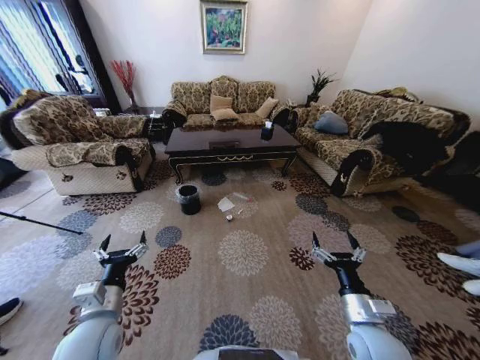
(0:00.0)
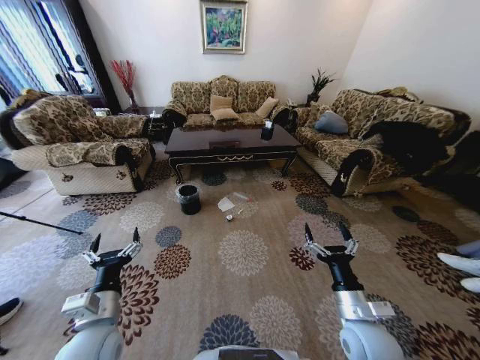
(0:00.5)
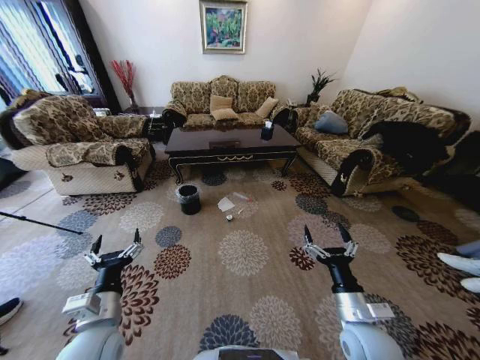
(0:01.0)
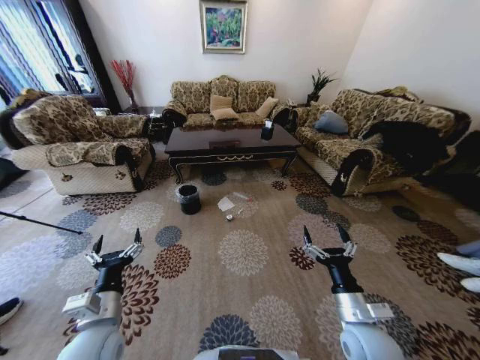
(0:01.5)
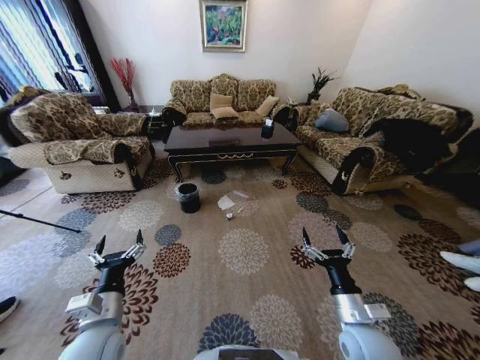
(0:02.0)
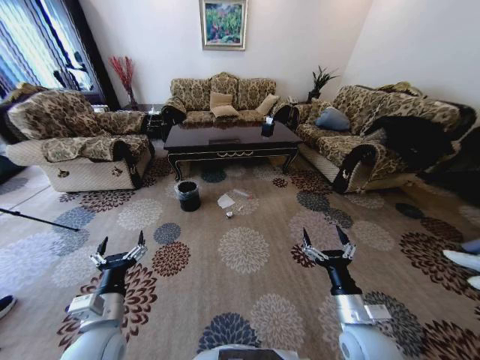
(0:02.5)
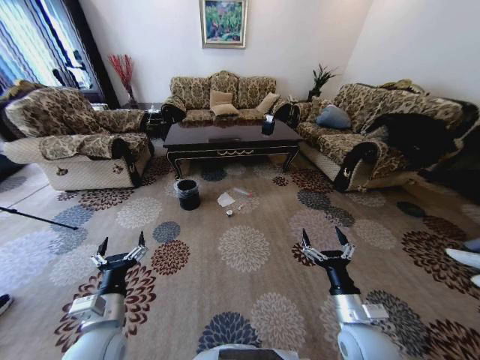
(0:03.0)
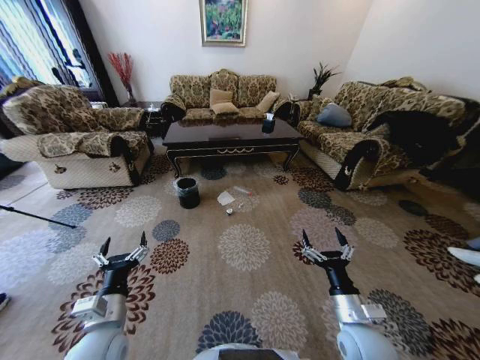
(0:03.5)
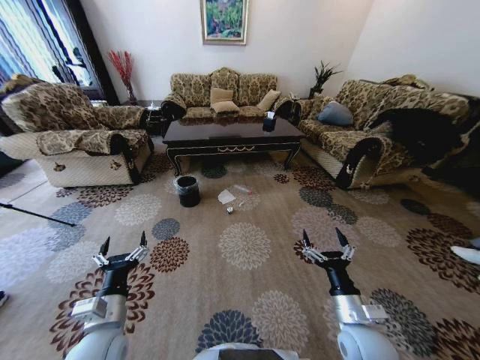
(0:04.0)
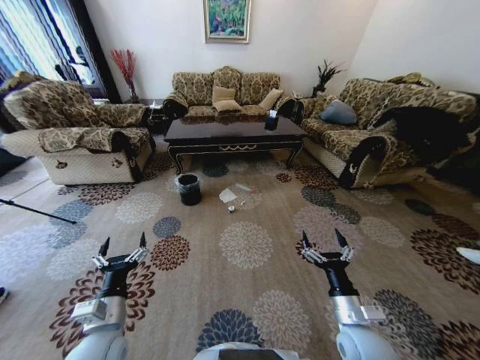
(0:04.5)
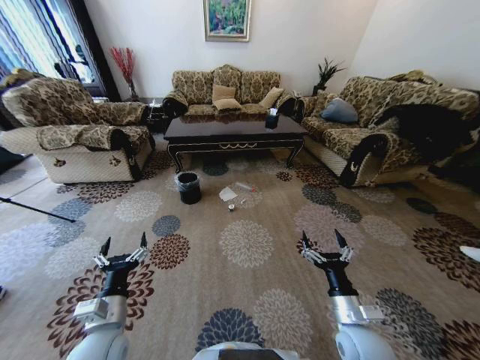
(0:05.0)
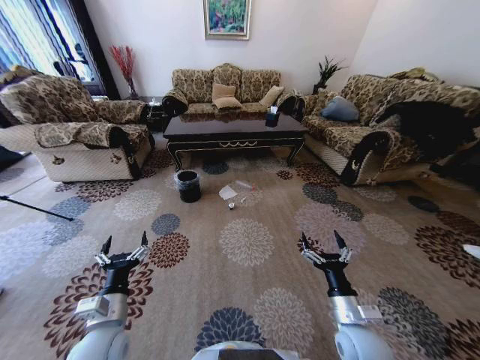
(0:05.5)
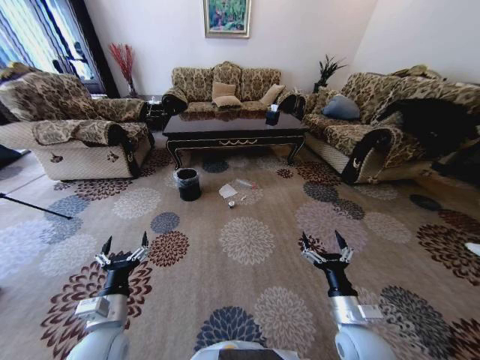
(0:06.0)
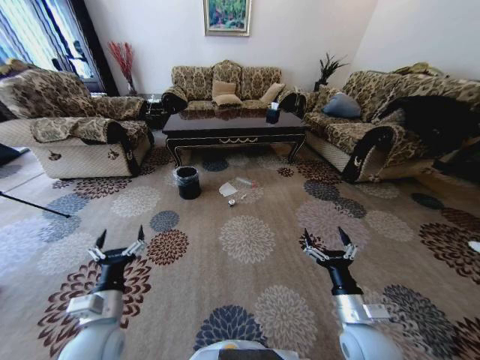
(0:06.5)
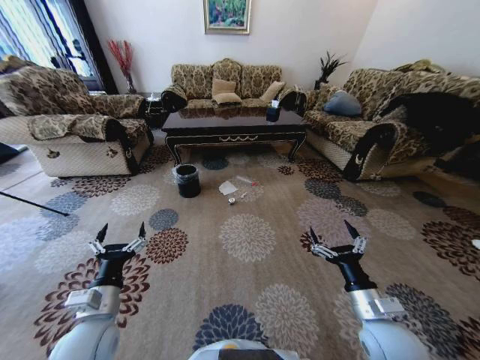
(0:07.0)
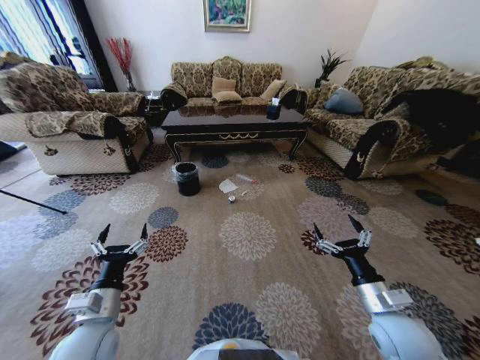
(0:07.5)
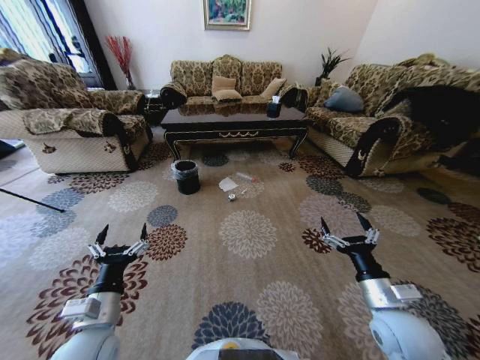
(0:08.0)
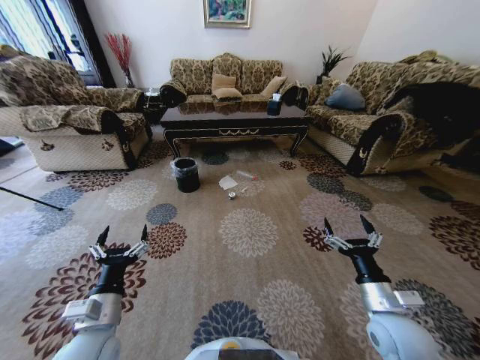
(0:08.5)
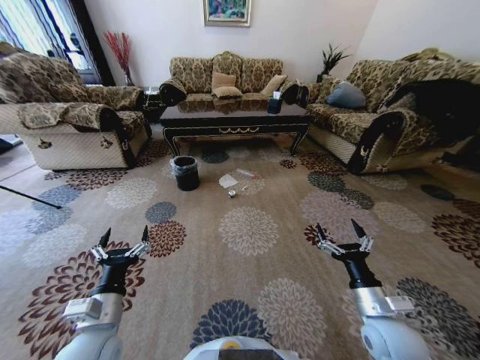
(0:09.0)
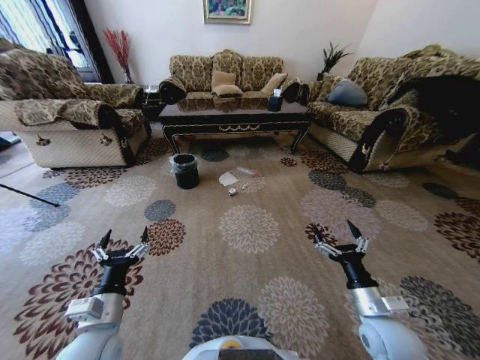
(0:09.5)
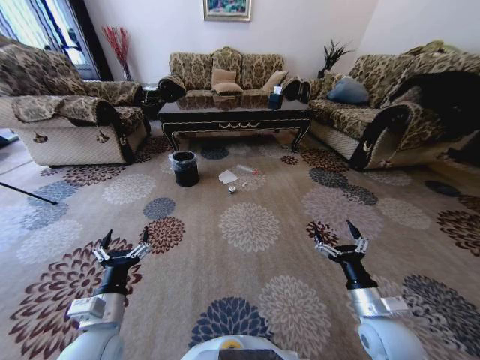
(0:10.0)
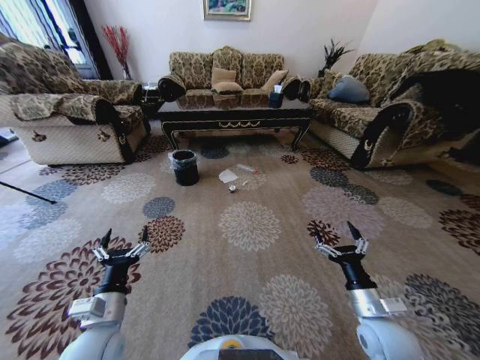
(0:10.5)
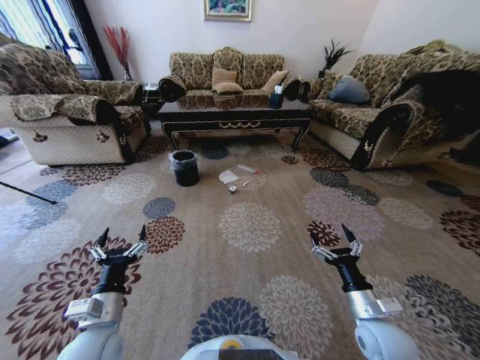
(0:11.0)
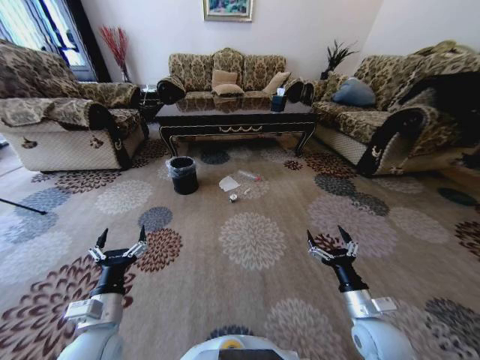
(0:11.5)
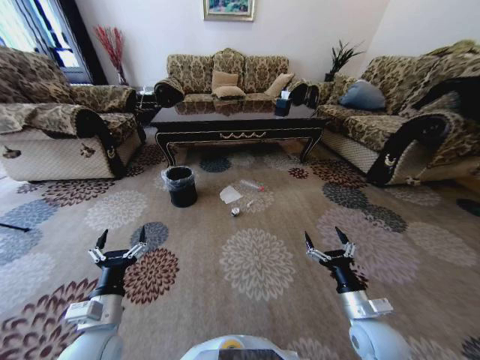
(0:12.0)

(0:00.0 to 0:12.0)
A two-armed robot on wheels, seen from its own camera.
Task of the whole recording: Move to the front of the table and pick up the trash from the floor, then place it into the trash bin.
0:06.0 - 0:08.0: The right gripper goes about 10 cm upward and to the right.

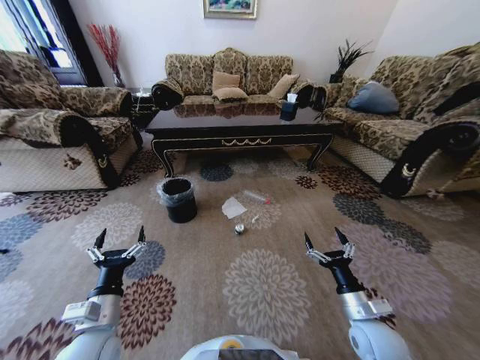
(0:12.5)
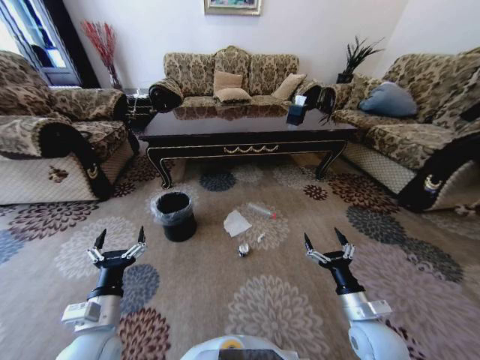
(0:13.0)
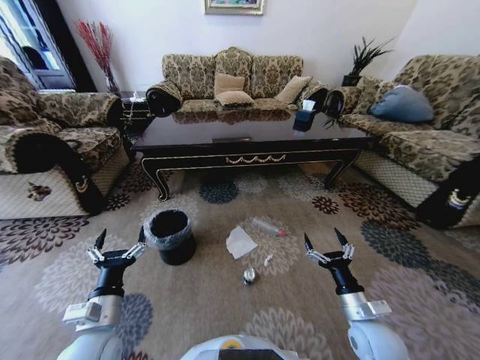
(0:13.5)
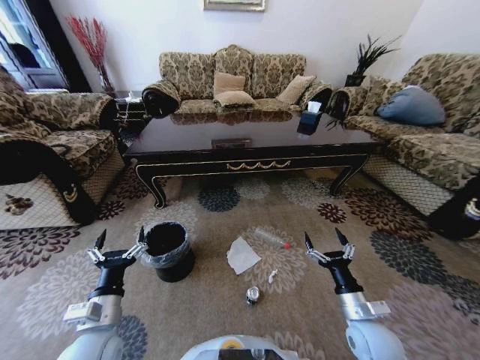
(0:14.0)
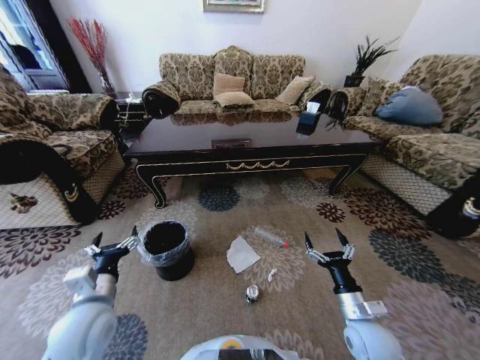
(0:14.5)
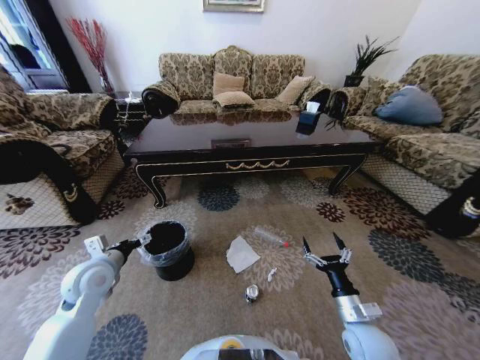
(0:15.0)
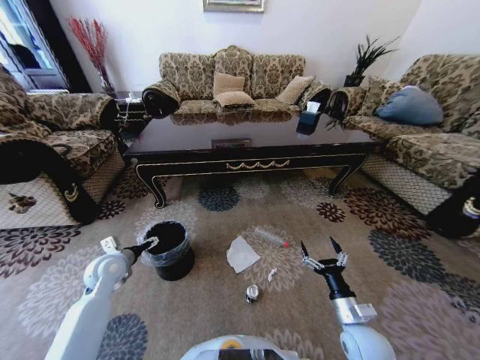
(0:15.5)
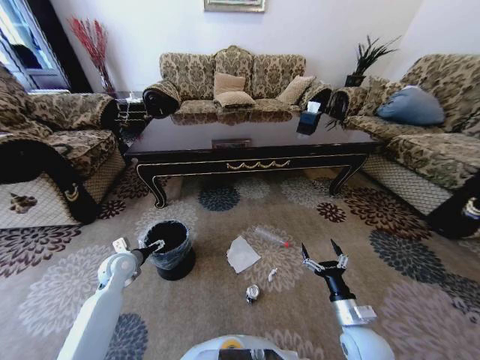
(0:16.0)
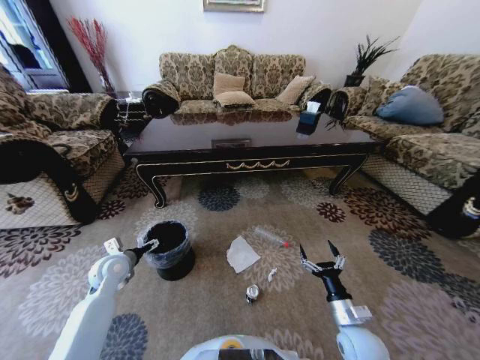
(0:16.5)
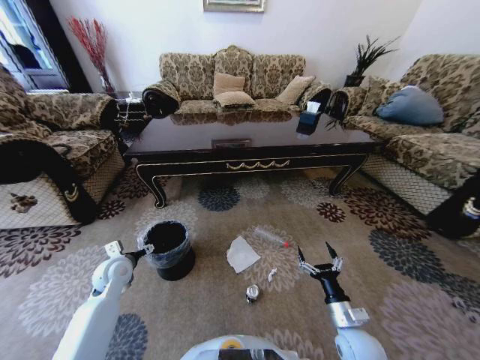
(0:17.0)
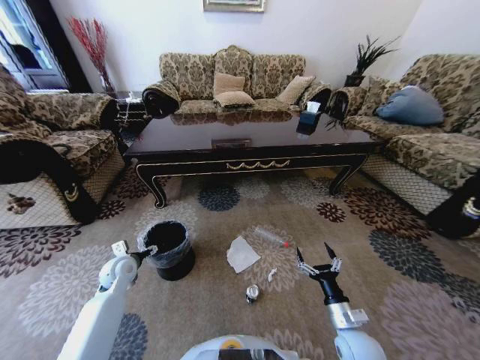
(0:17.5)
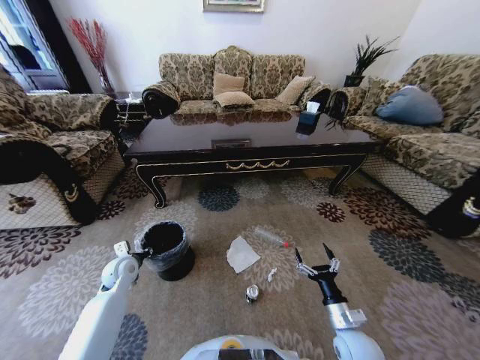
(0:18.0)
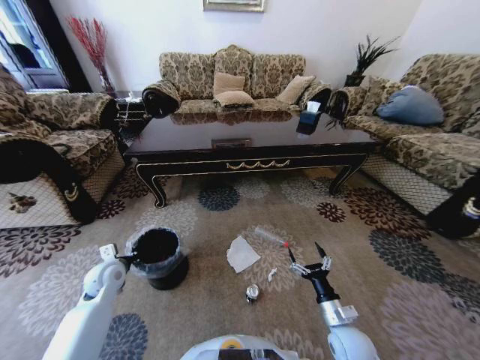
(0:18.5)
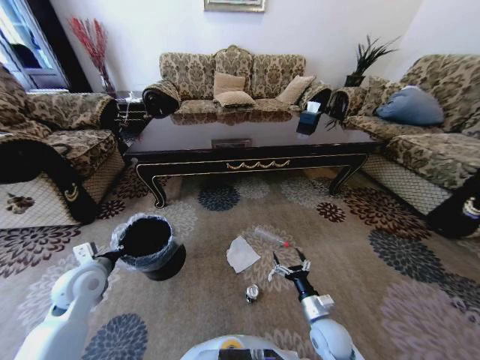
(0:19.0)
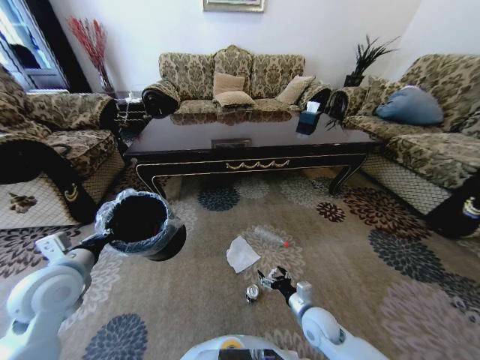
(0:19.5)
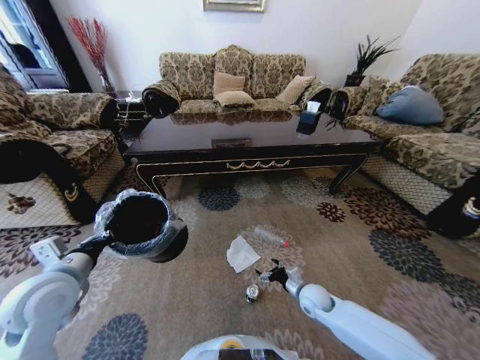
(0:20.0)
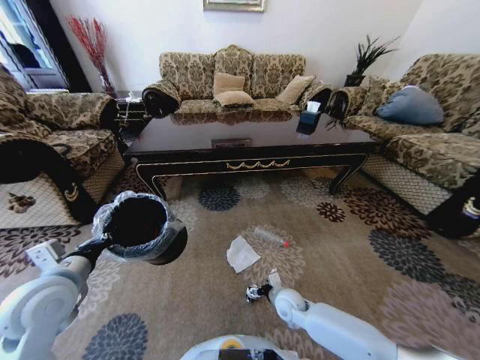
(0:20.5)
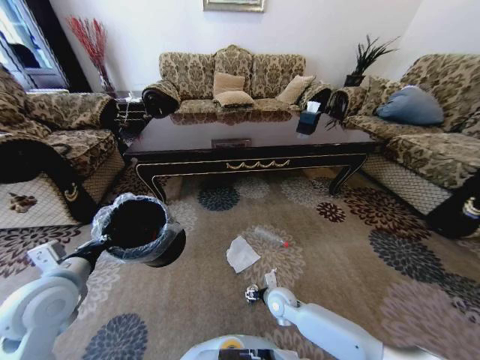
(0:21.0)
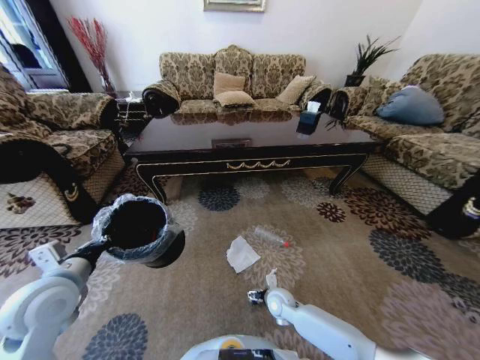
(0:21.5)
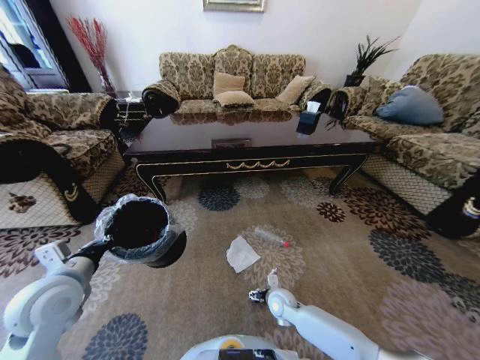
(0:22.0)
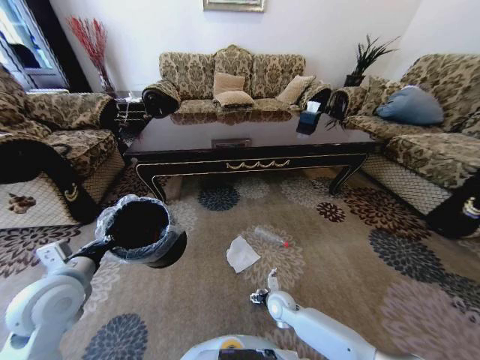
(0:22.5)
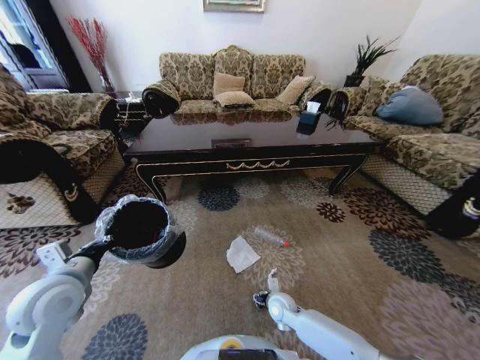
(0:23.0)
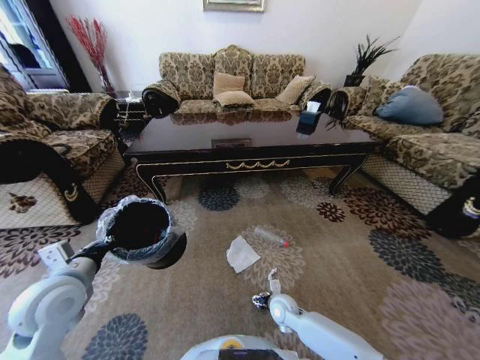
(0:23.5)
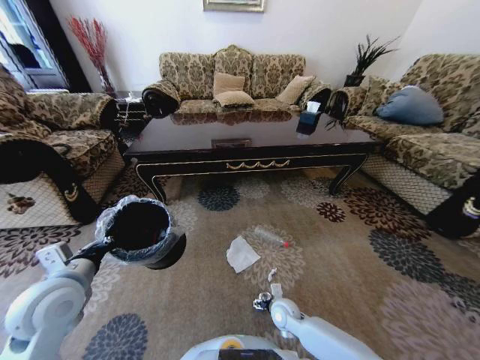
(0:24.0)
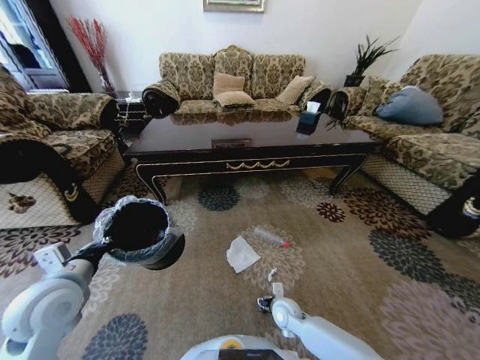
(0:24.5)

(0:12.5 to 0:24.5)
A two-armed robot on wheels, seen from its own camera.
Task of the whole recording: Move to the front of the table and pick up the trash from the floor, then place it into the trash bin.
0:12.5 - 0:14.5: The left gripper shifts by some 5 cm.
0:14.5 - 0:16.5: The left gripper moves forward, downward and to the left, approximately 20 cm.
0:16.5 - 0:18.5: The left gripper closes up.
0:18.5 - 0:20.5: The right gripper moves to the left and forward, about 15 cm. Meanwhile the left gripper is displaced upward and backward by some 20 cm.
0:20.5 - 0:22.5: The grippers move only a little.
0:22.5 - 0:24.5: The right gripper closes up.

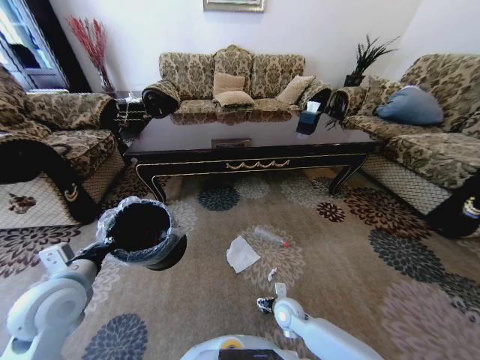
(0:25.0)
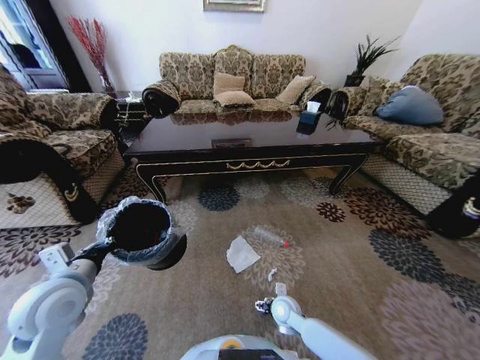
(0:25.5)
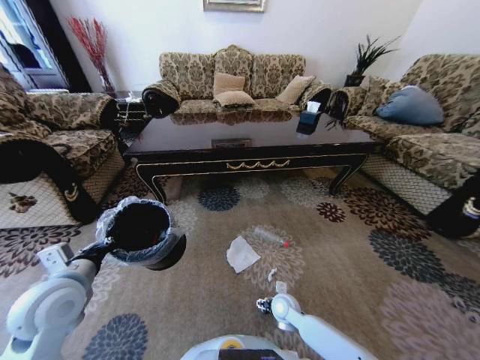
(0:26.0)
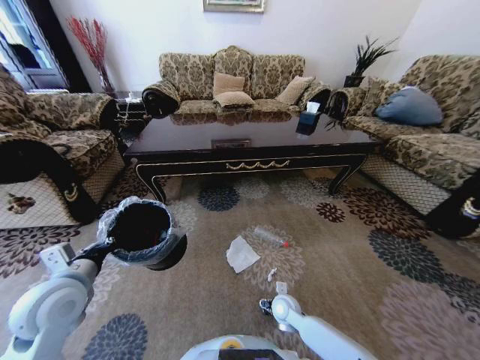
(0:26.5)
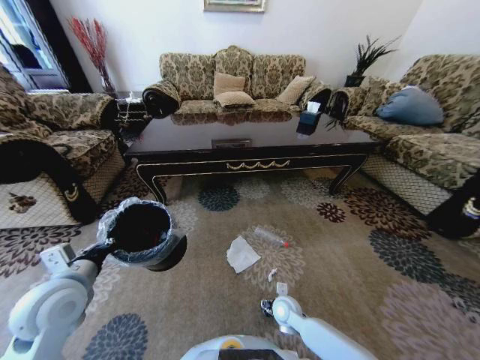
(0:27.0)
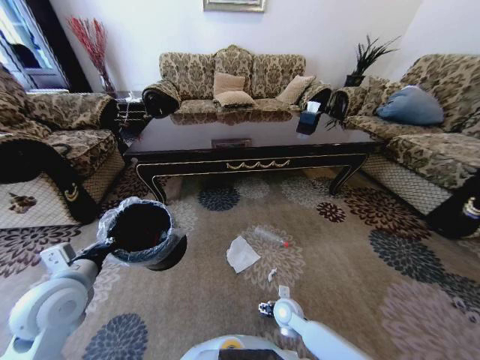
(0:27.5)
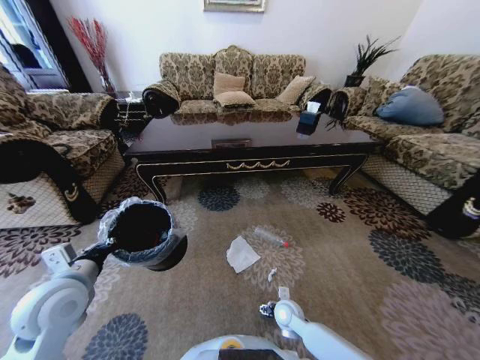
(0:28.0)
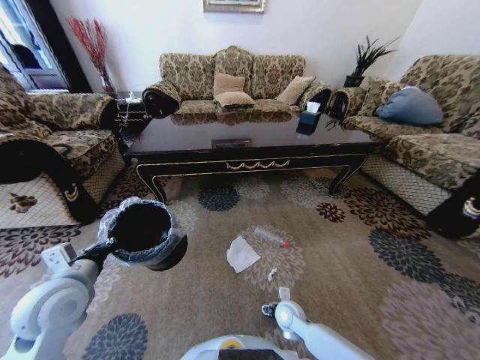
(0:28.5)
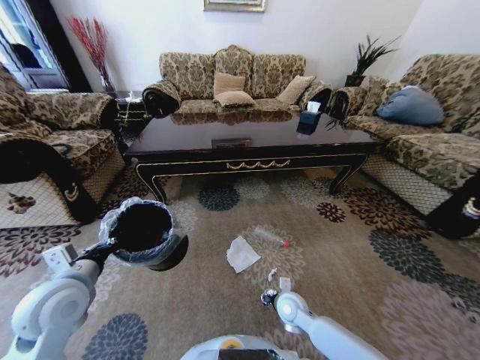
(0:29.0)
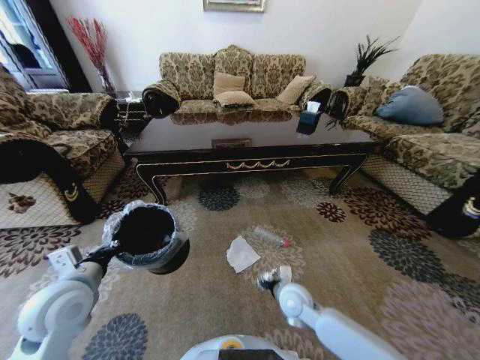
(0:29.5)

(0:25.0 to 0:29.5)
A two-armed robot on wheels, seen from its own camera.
Task of the whole recording: Move to the front of the table and pick up the trash from the floor, then place it into the trash bin.
0:25.0 - 0:27.0: The grippers make only small movements.
0:27.0 - 0:29.5: The right gripper heads upward, covering about 10 cm, and opens and closes again.
